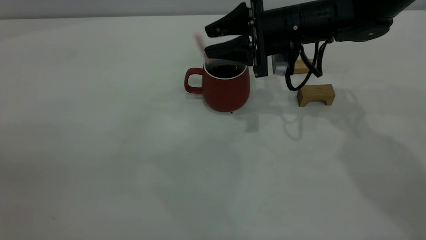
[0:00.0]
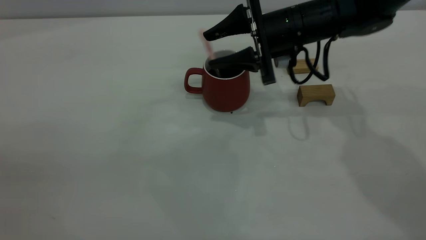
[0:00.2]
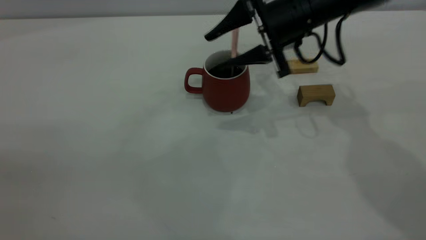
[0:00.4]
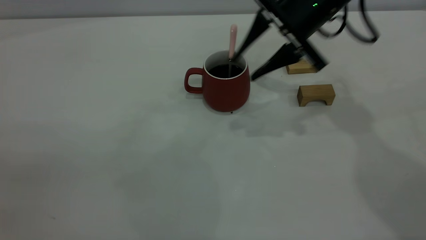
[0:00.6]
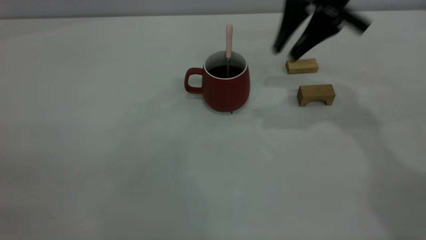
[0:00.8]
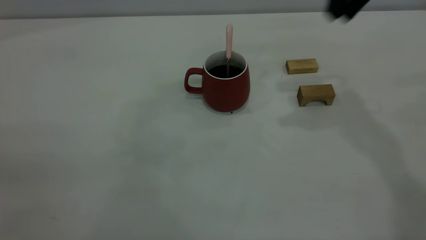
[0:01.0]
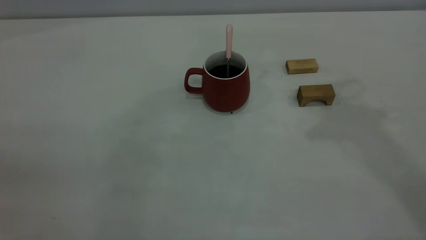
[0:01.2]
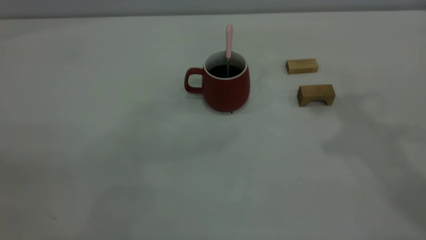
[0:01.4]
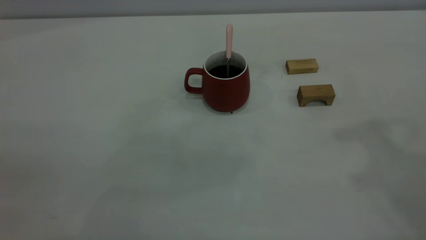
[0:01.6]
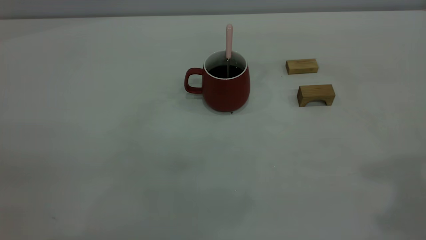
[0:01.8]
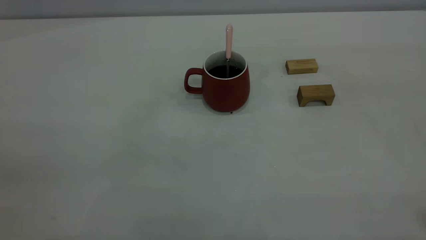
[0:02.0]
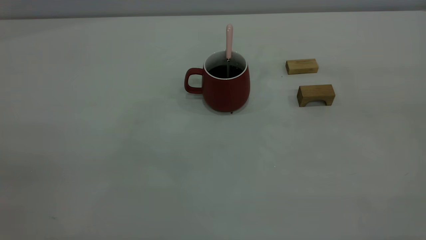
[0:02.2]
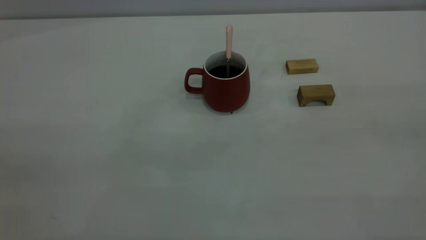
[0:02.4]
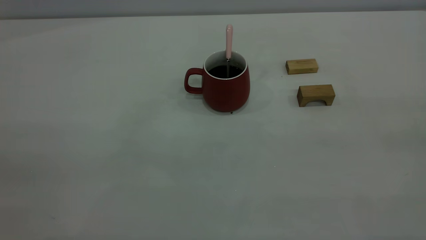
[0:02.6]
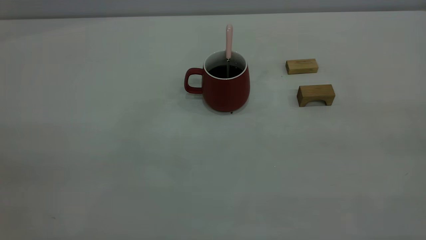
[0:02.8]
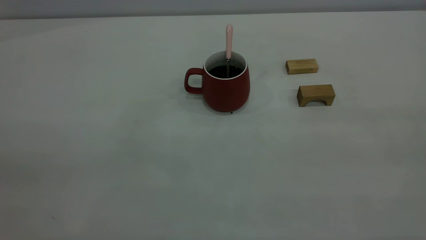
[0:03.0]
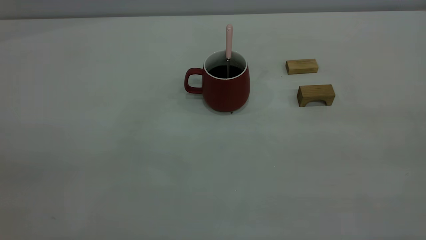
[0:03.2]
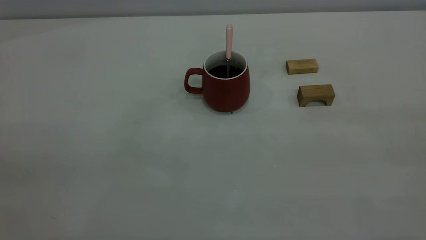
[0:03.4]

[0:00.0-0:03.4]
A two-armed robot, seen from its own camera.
0.0 to 1.6 s: The right gripper moves upward, backward and to the right, approximately 40 cm, and closes its fingers.

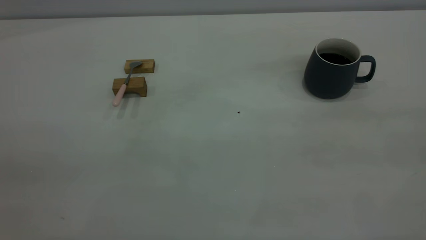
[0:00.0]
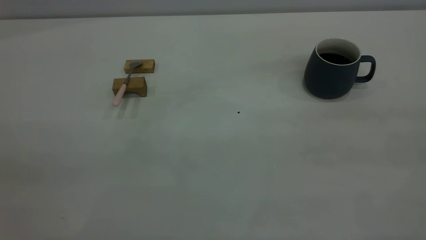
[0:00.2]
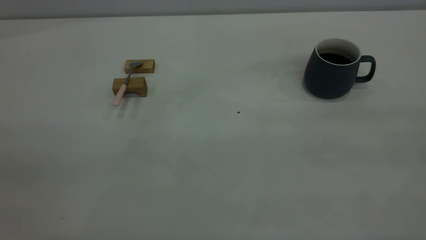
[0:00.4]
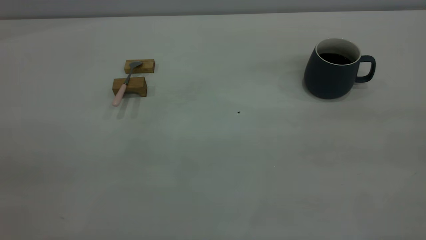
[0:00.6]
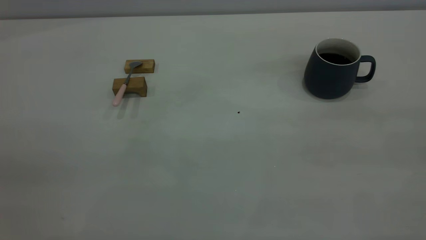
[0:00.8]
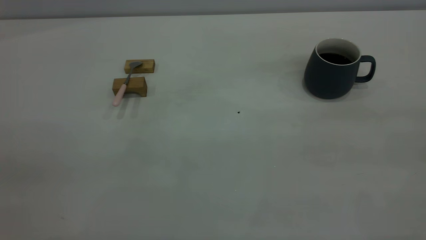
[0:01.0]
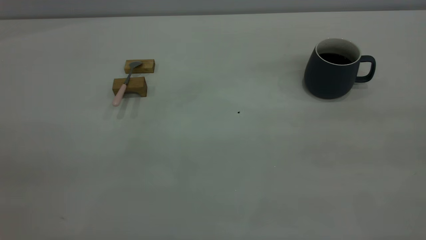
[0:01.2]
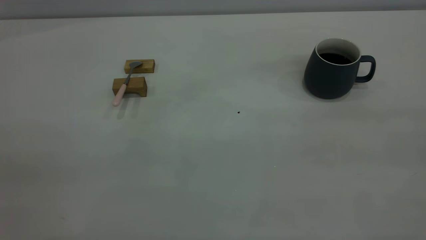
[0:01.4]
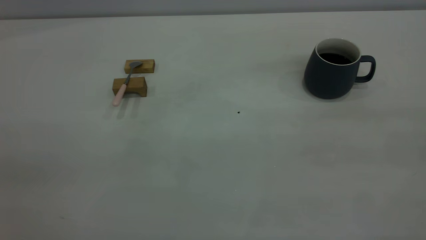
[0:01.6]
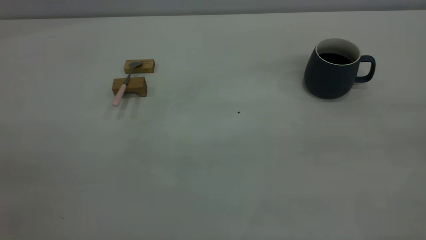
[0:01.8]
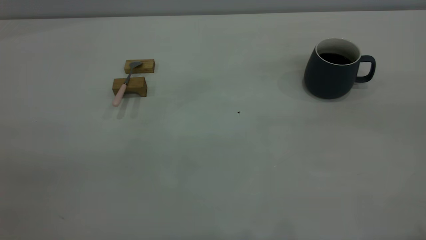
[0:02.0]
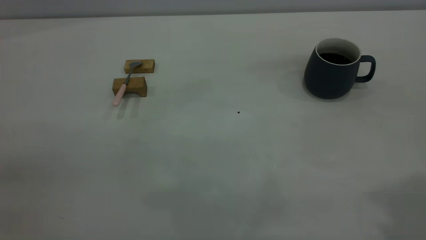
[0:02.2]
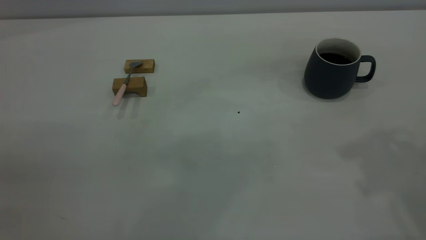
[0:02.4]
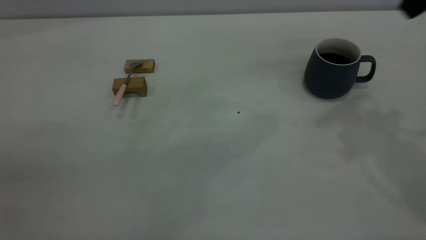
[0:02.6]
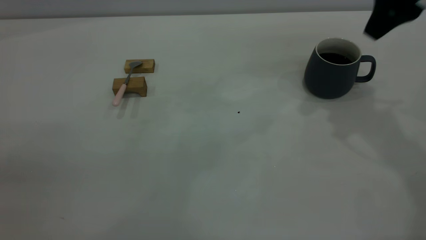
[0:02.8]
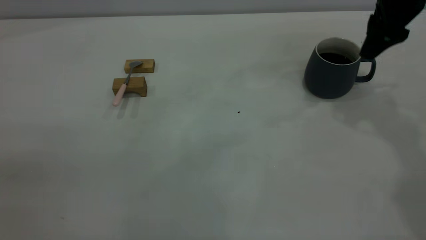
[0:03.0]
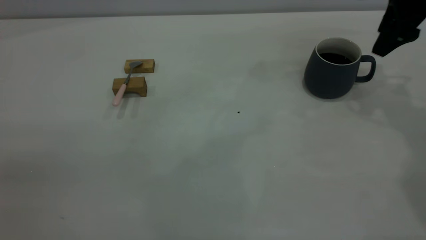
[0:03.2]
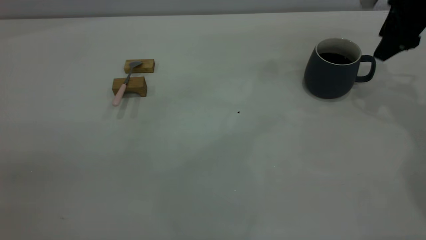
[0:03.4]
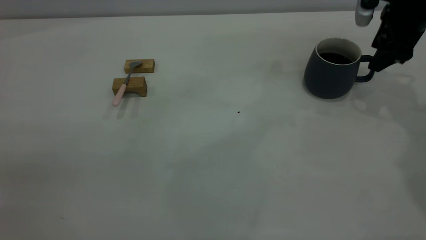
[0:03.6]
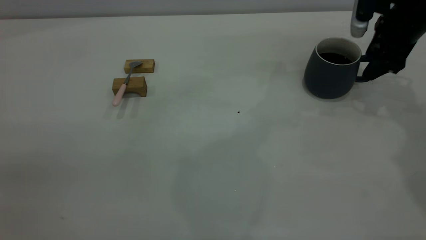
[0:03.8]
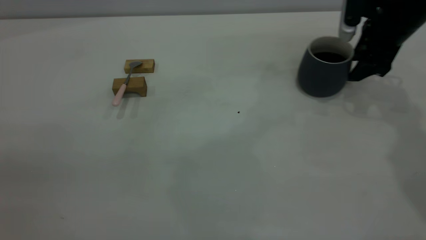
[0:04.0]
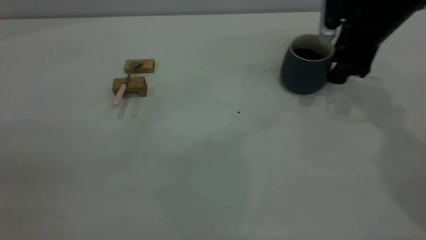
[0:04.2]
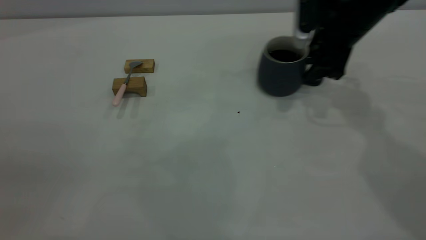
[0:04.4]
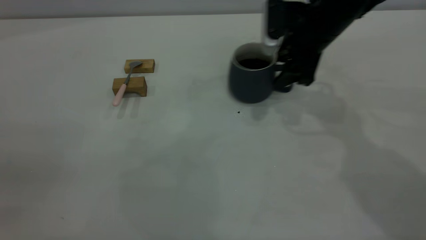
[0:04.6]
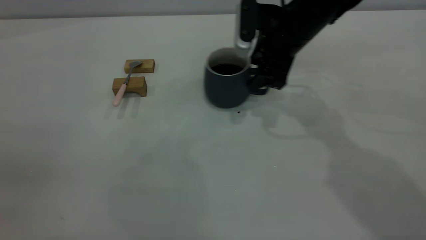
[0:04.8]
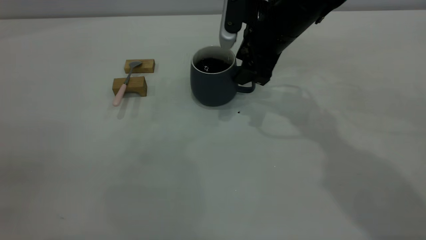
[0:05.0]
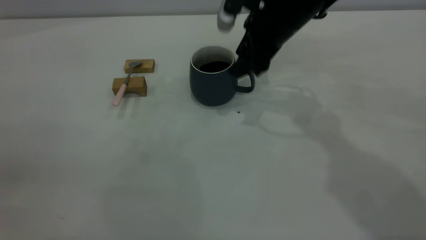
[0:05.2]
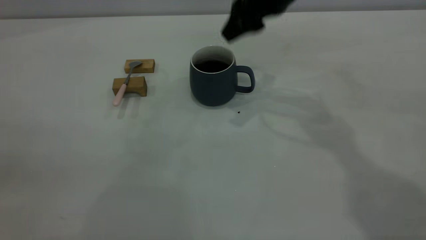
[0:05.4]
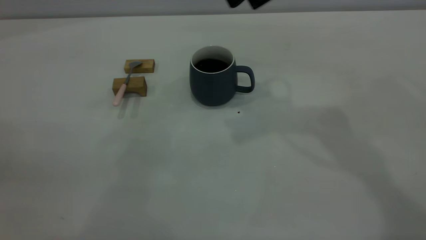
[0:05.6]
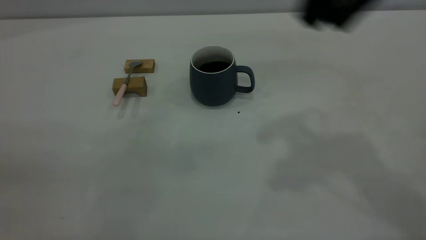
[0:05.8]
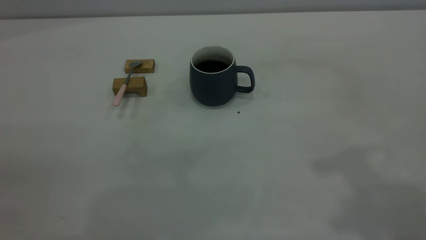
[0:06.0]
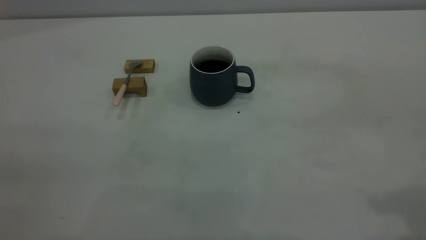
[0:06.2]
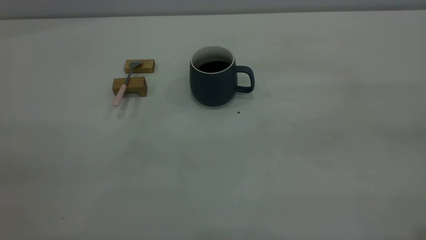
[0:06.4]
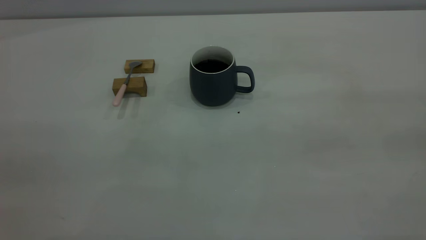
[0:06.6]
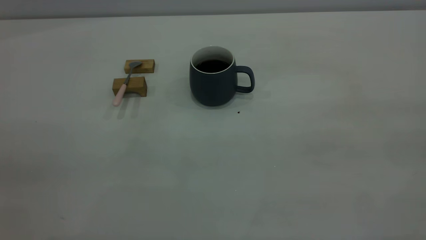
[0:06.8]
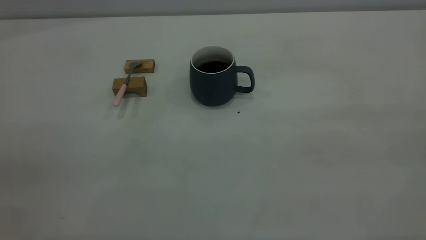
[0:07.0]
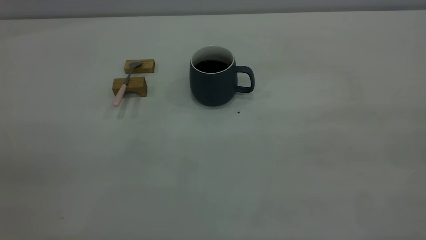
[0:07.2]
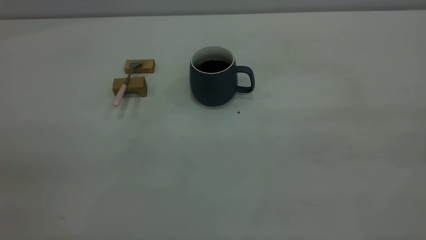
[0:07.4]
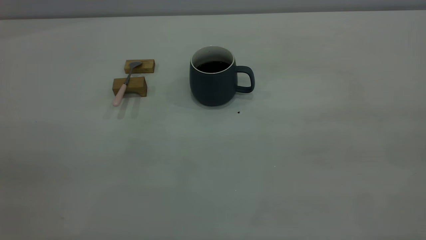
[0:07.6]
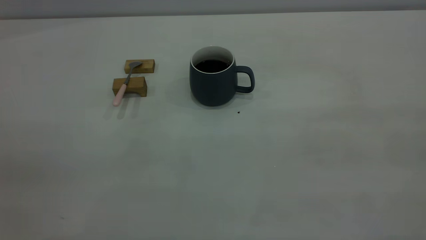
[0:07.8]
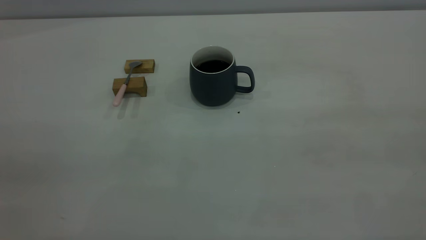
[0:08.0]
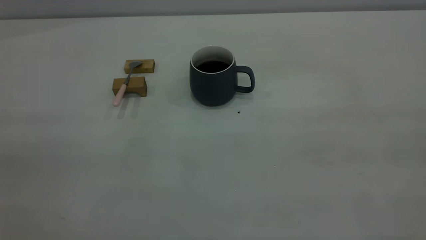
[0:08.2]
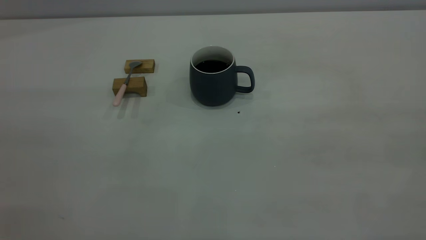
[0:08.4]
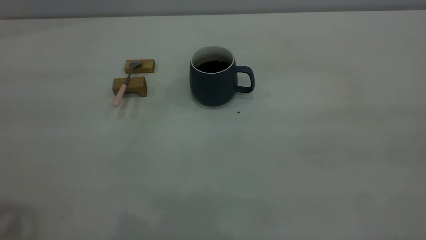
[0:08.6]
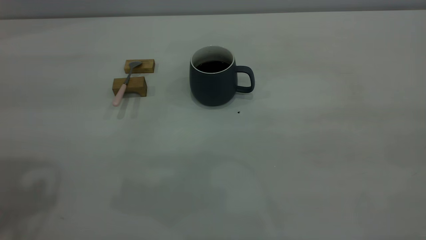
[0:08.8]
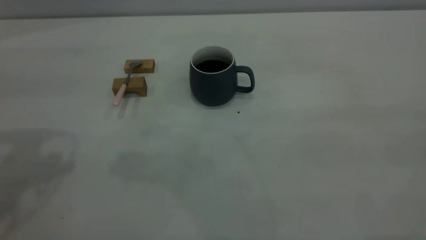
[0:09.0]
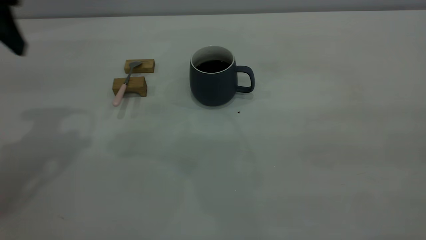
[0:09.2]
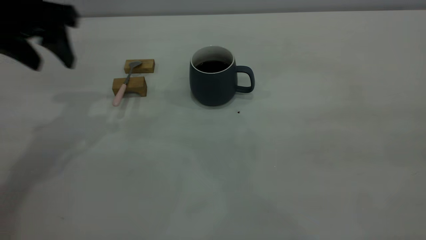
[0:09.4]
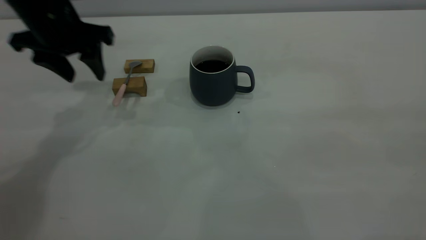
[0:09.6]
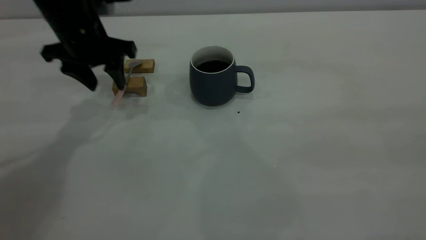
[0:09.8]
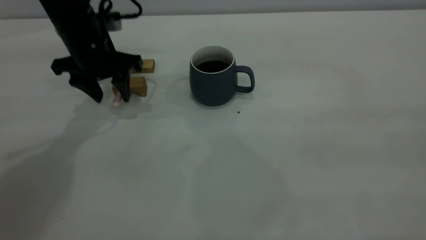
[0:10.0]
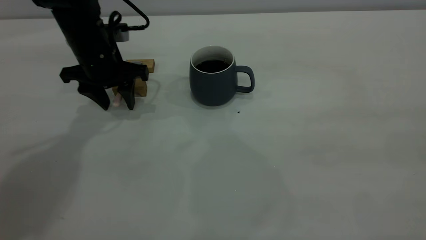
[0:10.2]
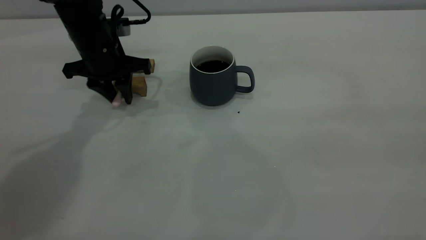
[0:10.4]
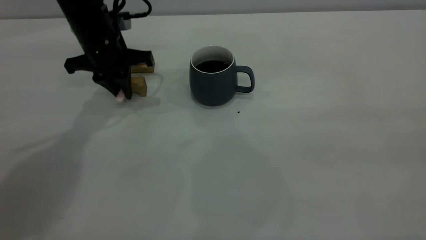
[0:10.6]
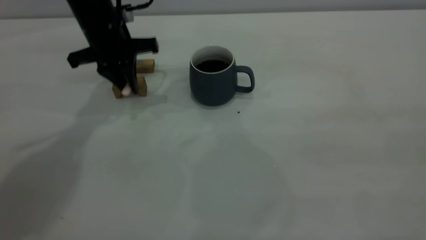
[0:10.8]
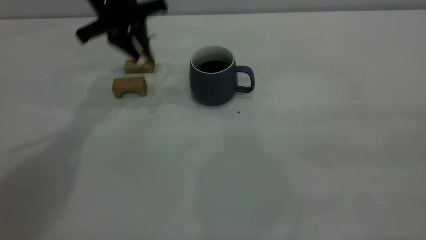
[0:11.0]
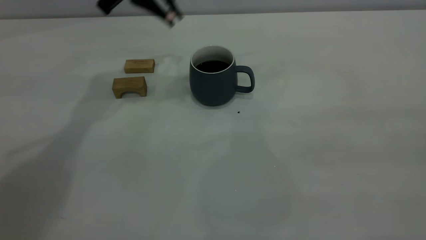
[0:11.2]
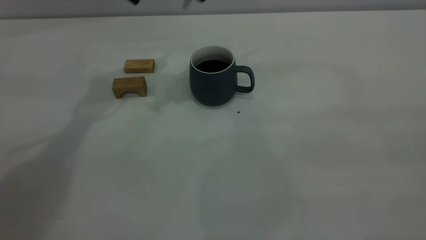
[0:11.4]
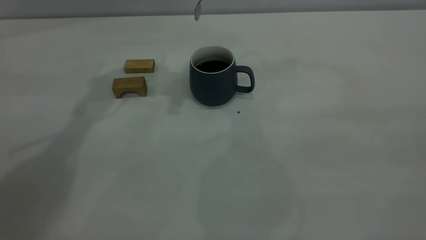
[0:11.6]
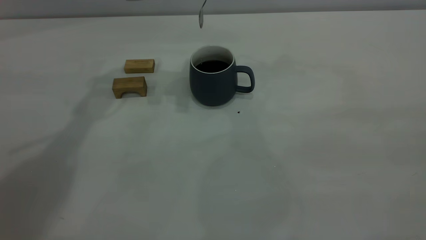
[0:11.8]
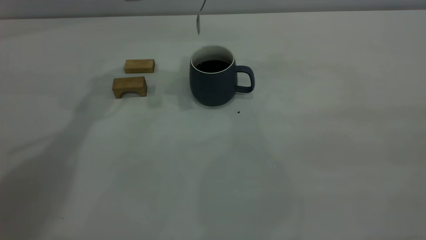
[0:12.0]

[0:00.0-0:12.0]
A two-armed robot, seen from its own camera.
Step, 0.0 to 5.2 s: Move the cup with coffee to the center of view.
Step, 5.4 to 10.8 s: Pick up the spoon.
0.0 to 1.6 s: The two grippers keep their place.
1.6 to 3.0 s: The right gripper heads forward, covering about 40 cm, and opens its fingers.
3.0 to 4.4 s: The right gripper is displaced downward and to the left by approximately 10 cm.
4.4 to 6.0 s: The right gripper heads backward and upward, covering some 35 cm, and closes.
9.0 to 10.4 s: The left gripper travels downward, forward and to the right by roughly 25 cm, and closes its fingers.
10.4 to 12.0 s: The left gripper travels upward and to the right by some 15 cm.

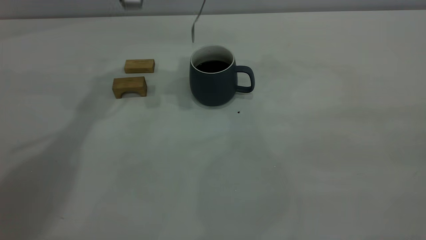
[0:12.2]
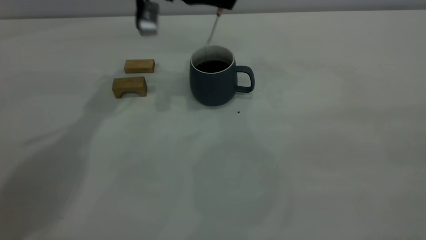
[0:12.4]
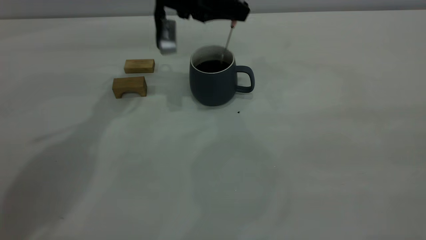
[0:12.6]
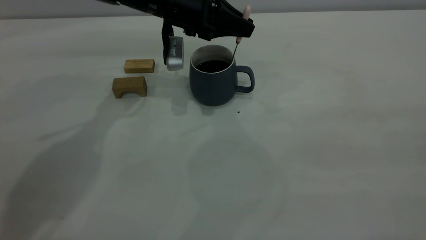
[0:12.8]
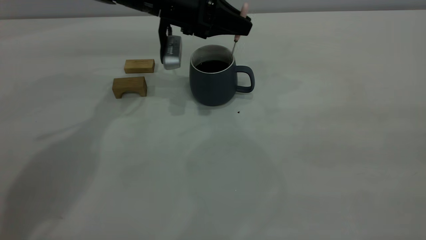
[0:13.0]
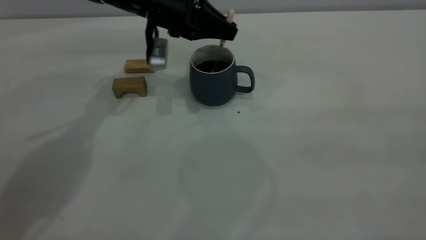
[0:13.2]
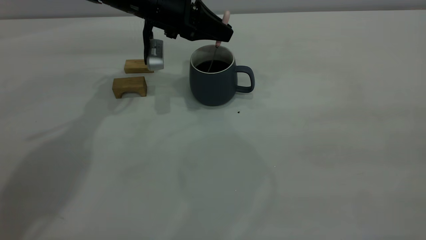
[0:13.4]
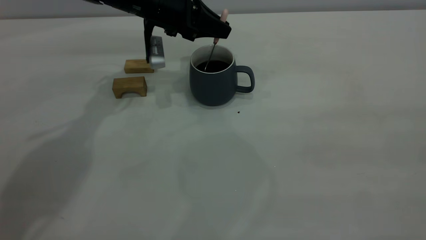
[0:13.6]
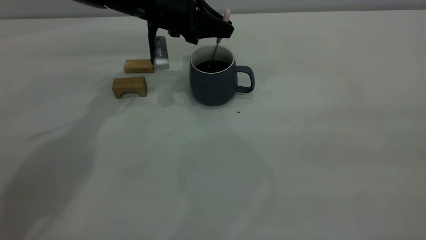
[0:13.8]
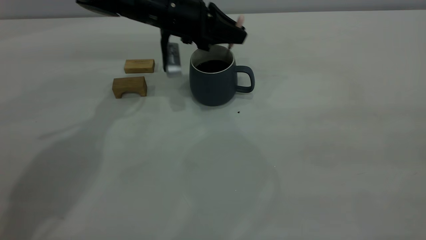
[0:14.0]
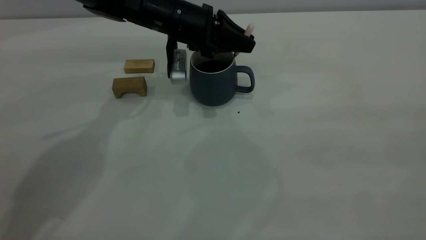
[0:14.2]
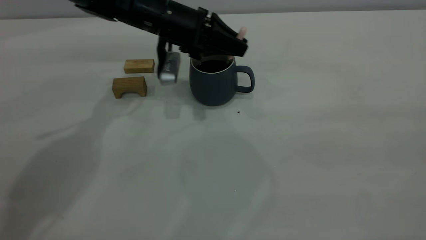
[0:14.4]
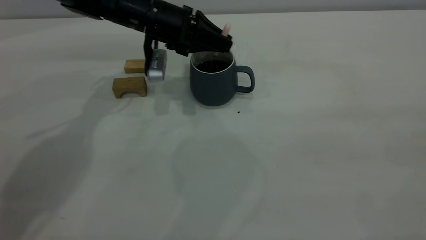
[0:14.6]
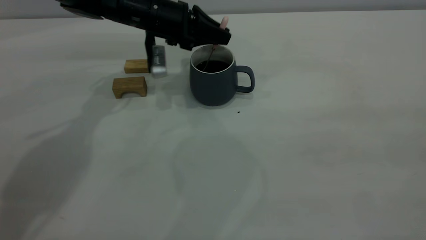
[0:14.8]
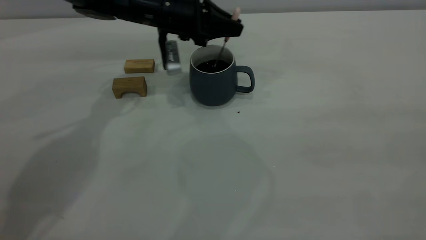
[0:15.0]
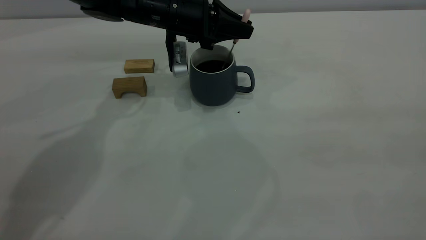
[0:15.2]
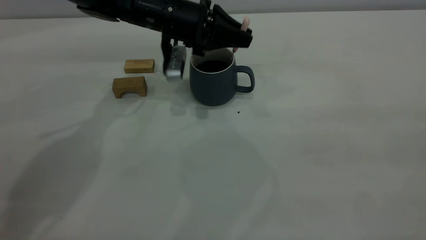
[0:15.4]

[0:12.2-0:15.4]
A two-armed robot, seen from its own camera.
12.2 to 13.8 s: The left gripper goes approximately 10 cm downward.
13.8 to 15.4 s: The grippers move only a little.
